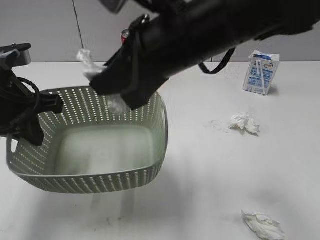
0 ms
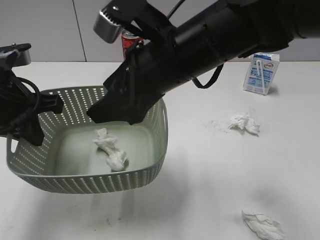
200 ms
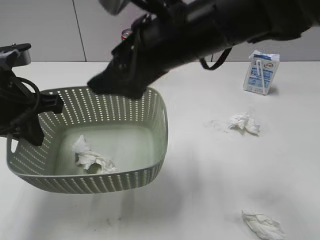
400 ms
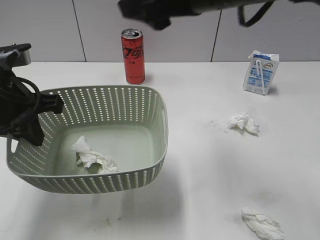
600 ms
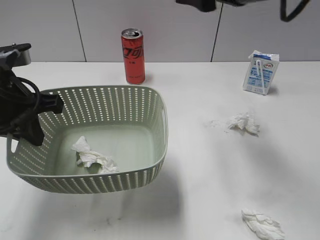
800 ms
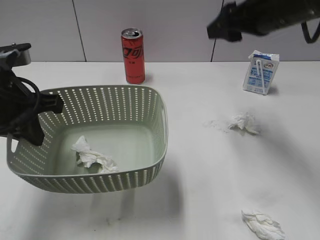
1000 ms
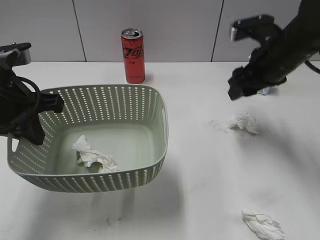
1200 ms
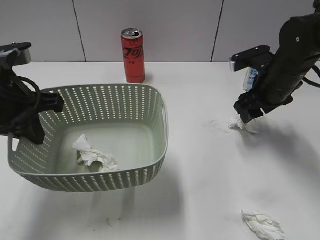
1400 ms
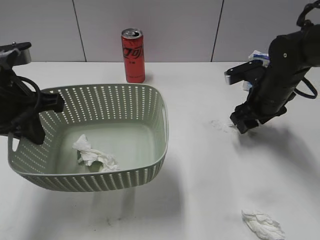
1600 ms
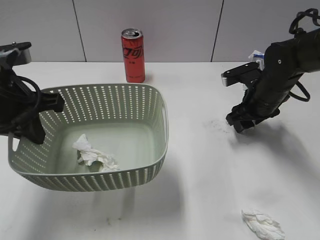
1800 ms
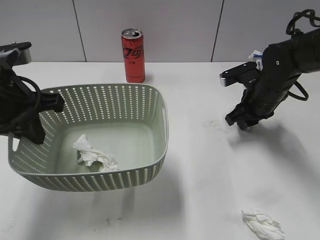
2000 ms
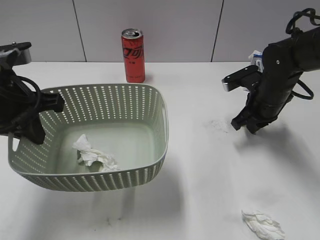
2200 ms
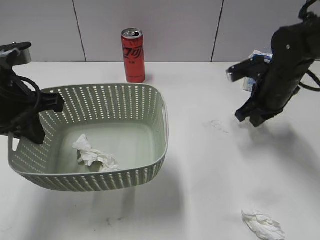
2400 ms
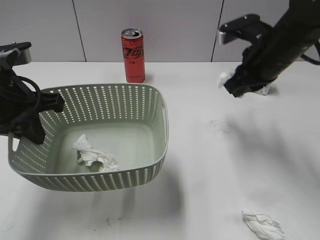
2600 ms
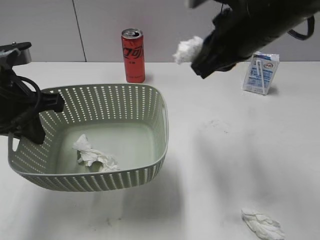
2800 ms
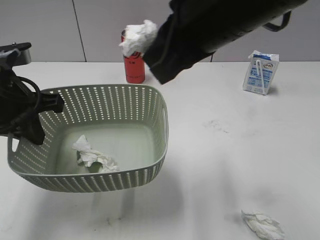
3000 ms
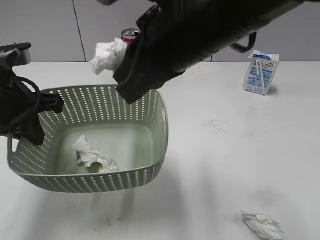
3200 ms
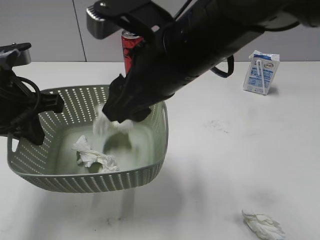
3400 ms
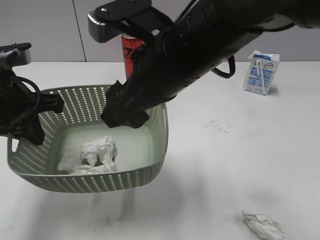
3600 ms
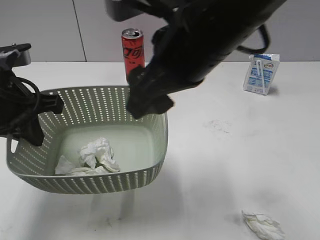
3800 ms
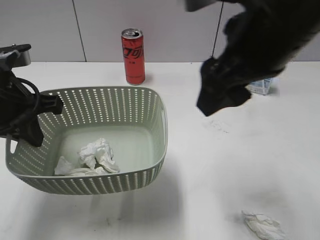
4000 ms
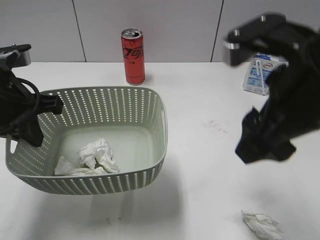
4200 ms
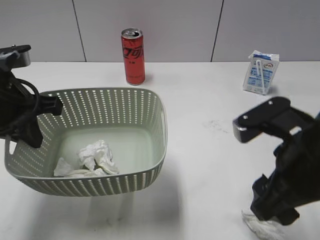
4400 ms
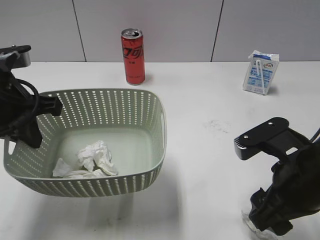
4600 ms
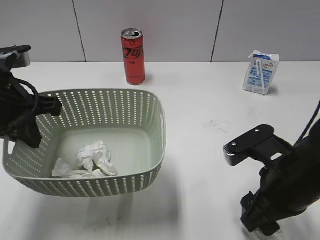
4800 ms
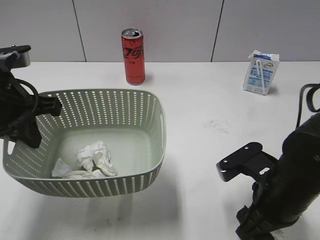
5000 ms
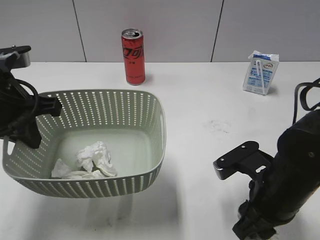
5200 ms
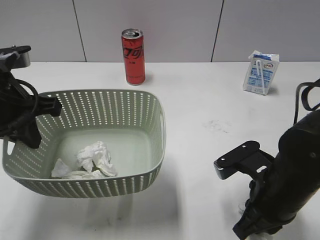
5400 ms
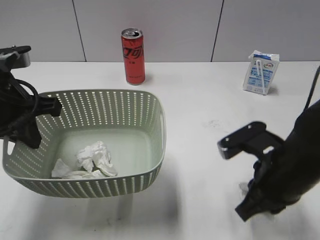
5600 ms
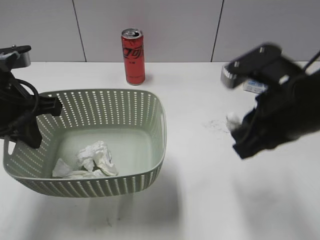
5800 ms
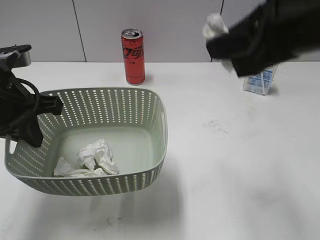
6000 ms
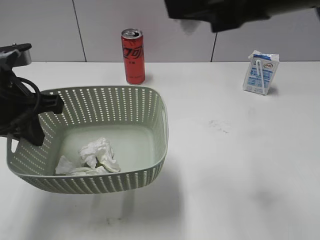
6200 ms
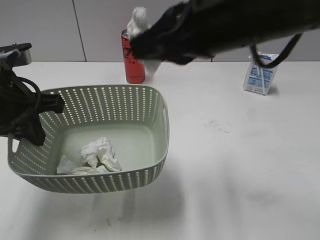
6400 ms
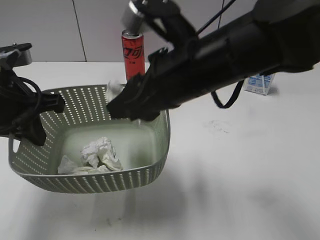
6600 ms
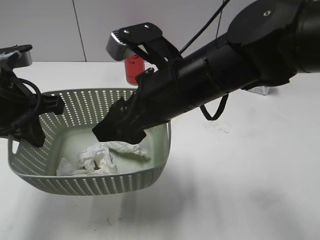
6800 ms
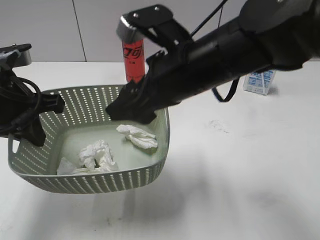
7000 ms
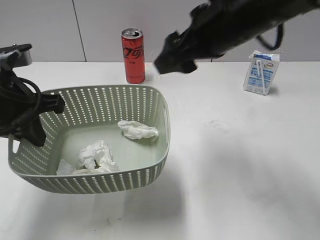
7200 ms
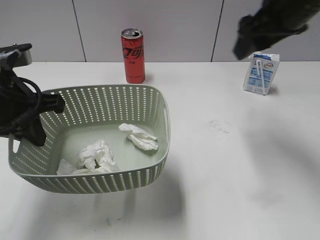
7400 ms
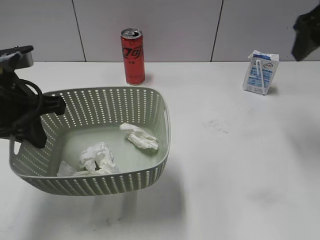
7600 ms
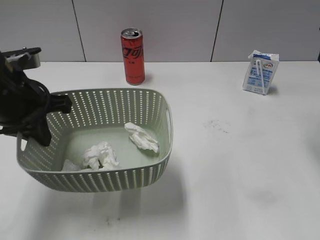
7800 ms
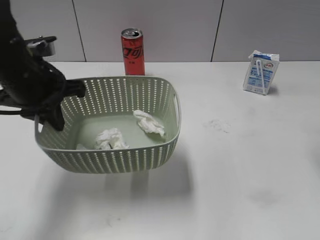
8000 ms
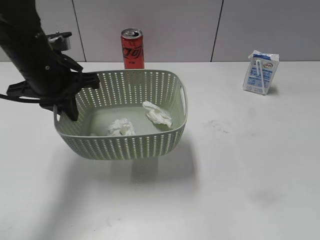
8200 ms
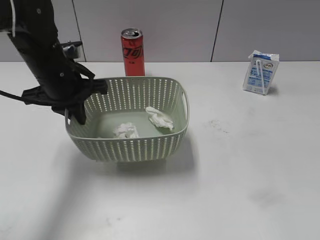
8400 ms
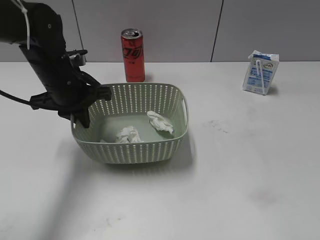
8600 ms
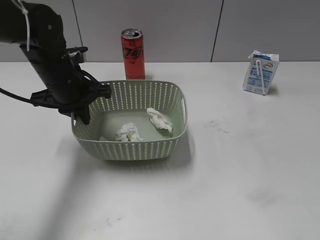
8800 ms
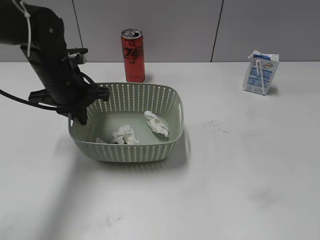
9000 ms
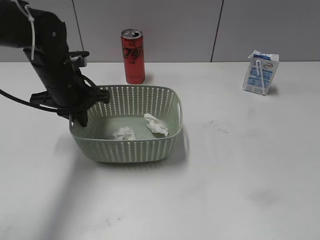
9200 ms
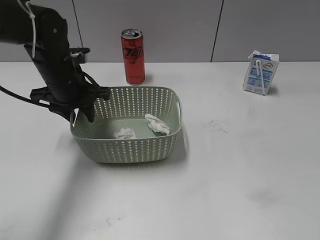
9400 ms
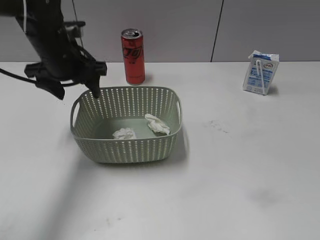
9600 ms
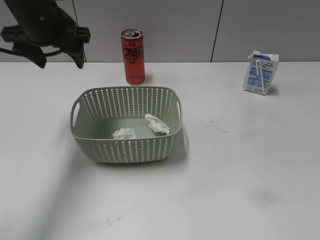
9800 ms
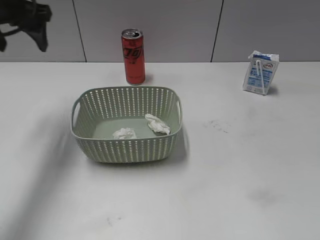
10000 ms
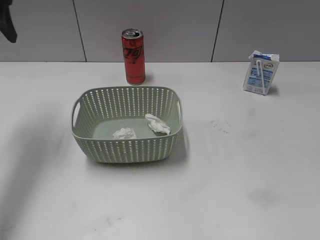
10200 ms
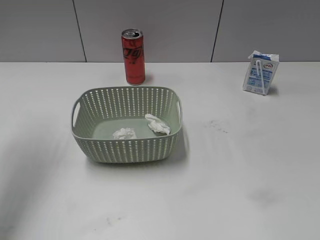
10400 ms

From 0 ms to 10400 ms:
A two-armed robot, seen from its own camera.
Step, from 600 ms to 2200 ms: Grasp the waste paper with right gripper.
Step, from 2400 ms to 3600 ms: Place the waste paper in the basket with right gripper.
Step, from 3800 ms to 5400 ms: Grasp the waste paper with right gripper.
Step, from 5600 ms to 7000 ms: Place the waste paper in the basket with right gripper.
Step, from 7200 ms to 9600 ms: Place the basket on the table with left gripper.
From 0 ms to 1400 ms: The right gripper heads to the right, downward and forward, covering roughly 25 cm, and opens up.
From 1400 ms to 3000 ms: The right gripper travels upward, to the left and backward by about 25 cm, and closes.
From 3000 ms to 4400 ms: The right gripper is displaced downward, to the right and backward by some 15 cm, and opens.
From 4400 ms to 6000 ms: The right gripper is displaced upward by some 15 cm, and closes its fingers.
From 6000 ms to 7400 ms: The right gripper moves forward, some 15 cm, moves about 10 cm downward and comes back, and opens.
From 7400 ms to 9000 ms: The right gripper shifts roughly 35 cm backward and to the right; the left gripper moves forward and downward, approximately 15 cm.
From 9000 ms to 10400 ms: The left gripper heads upward and to the left, covering approximately 25 cm, and opens.

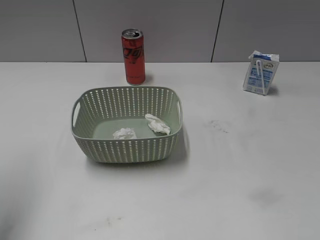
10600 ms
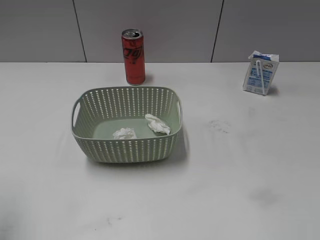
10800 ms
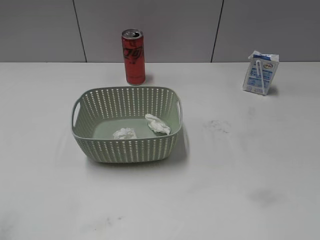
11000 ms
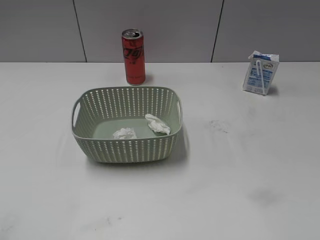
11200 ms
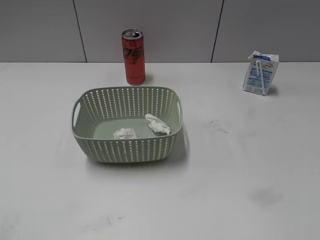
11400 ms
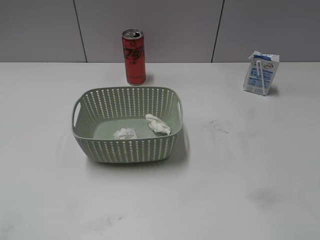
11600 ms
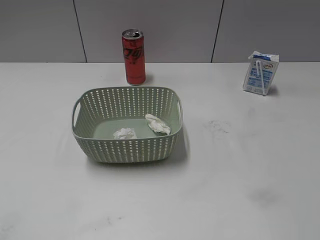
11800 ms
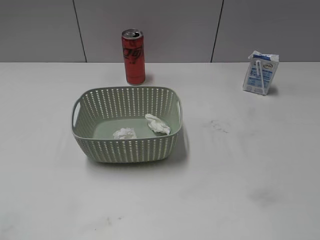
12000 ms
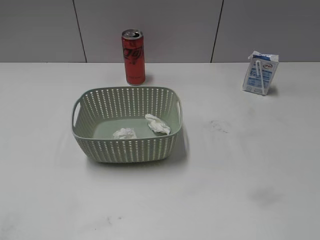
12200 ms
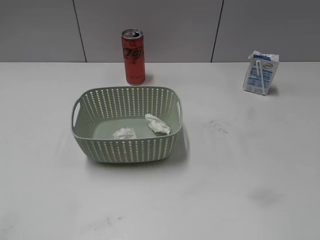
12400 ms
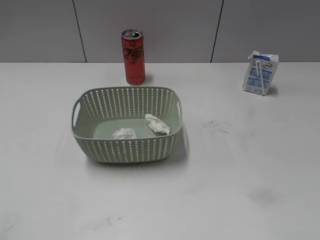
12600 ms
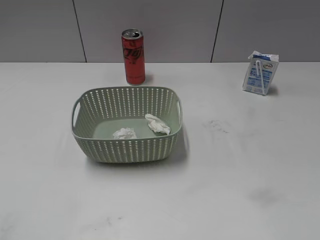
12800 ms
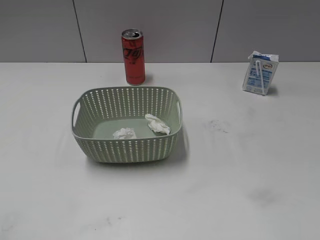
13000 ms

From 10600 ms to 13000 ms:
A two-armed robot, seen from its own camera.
From 10600 ms to 11800 ms: The left gripper goes about 25 cm backward.

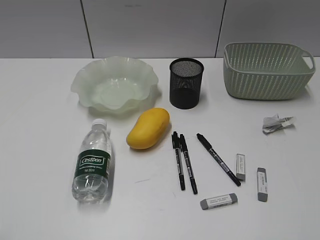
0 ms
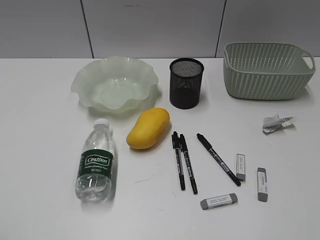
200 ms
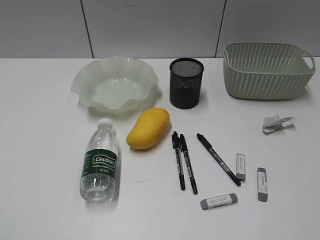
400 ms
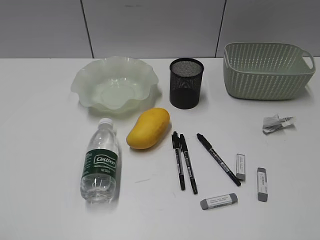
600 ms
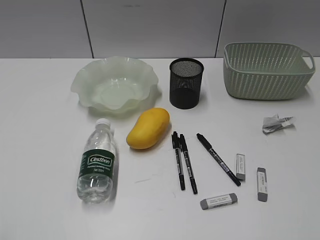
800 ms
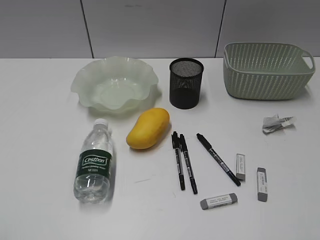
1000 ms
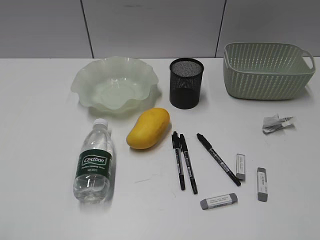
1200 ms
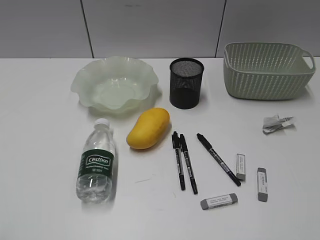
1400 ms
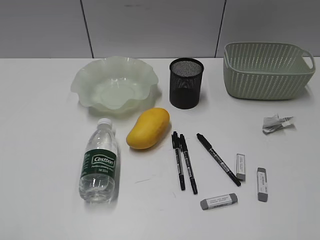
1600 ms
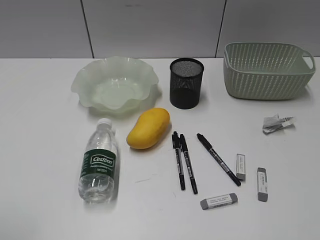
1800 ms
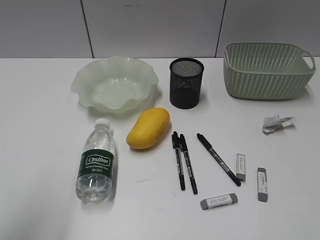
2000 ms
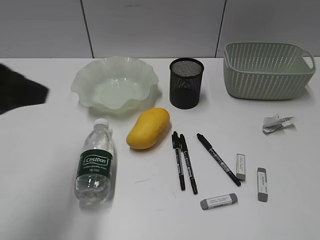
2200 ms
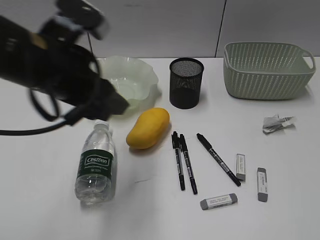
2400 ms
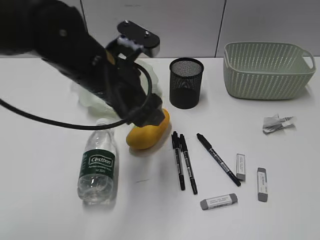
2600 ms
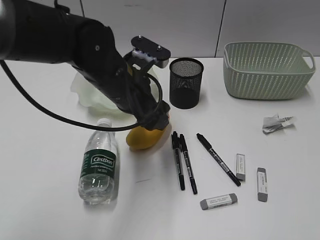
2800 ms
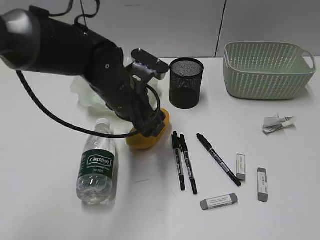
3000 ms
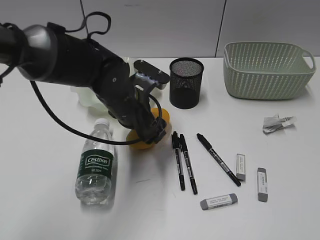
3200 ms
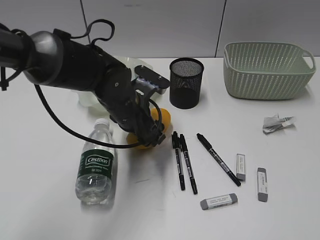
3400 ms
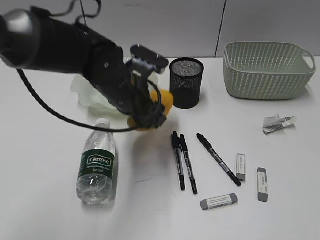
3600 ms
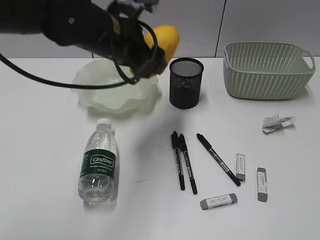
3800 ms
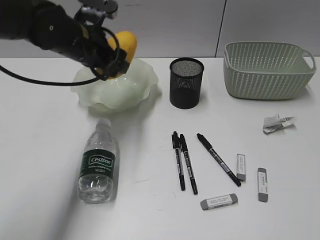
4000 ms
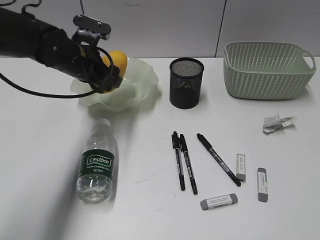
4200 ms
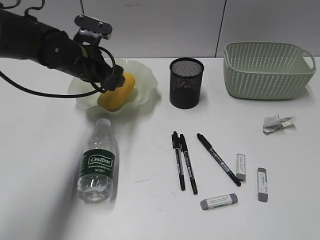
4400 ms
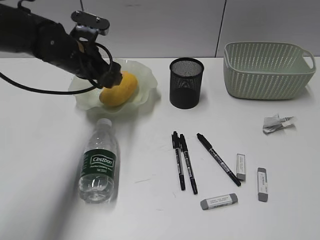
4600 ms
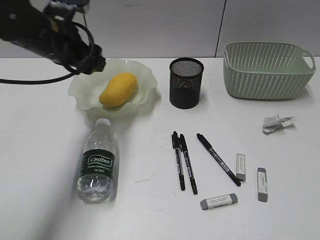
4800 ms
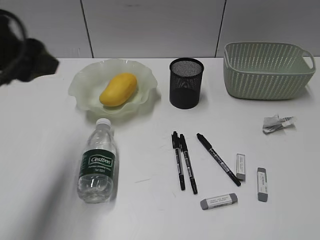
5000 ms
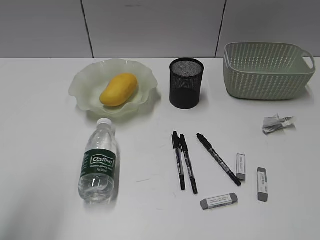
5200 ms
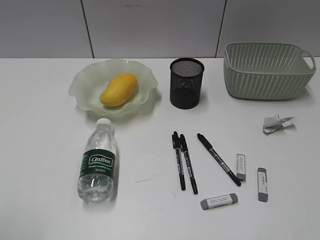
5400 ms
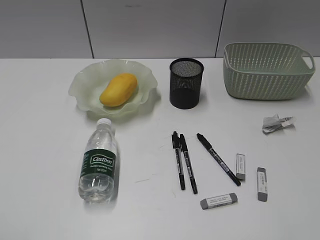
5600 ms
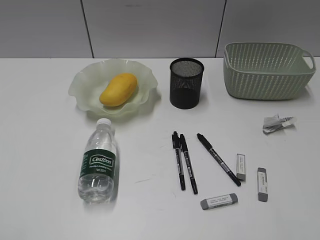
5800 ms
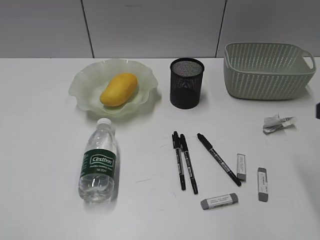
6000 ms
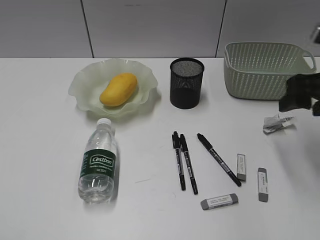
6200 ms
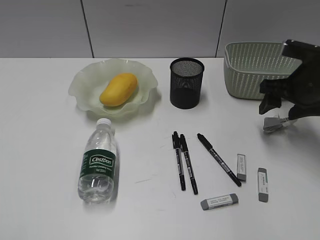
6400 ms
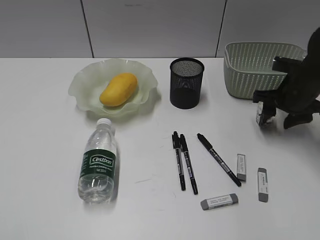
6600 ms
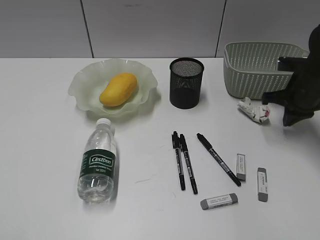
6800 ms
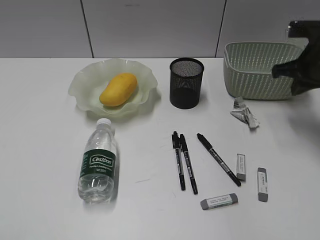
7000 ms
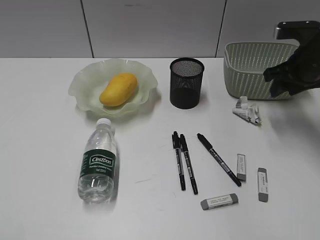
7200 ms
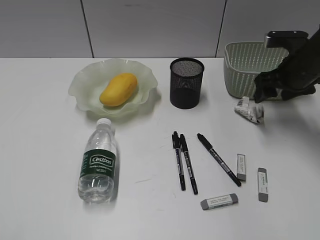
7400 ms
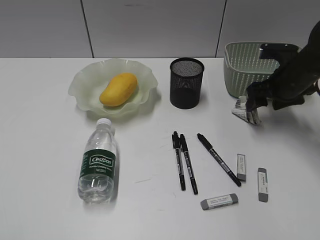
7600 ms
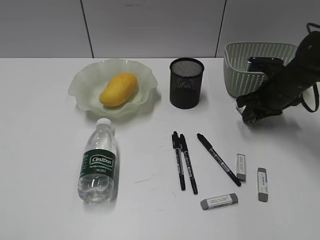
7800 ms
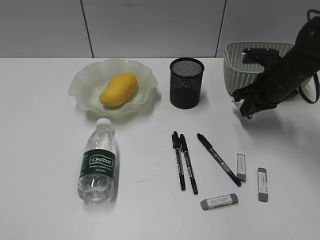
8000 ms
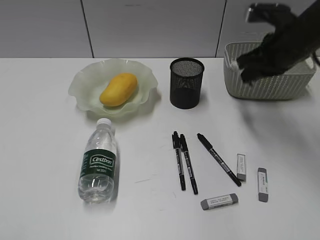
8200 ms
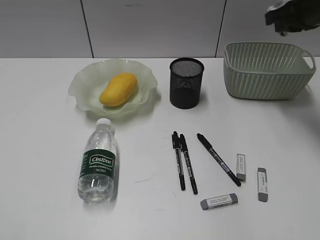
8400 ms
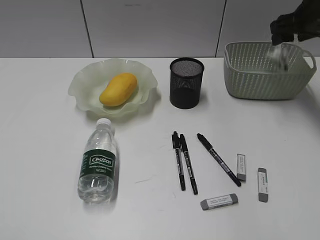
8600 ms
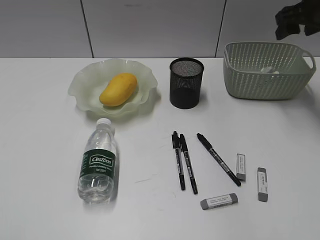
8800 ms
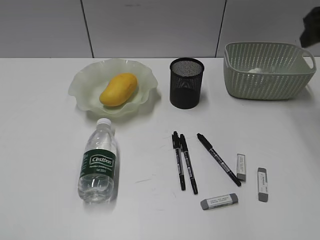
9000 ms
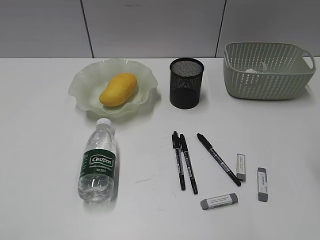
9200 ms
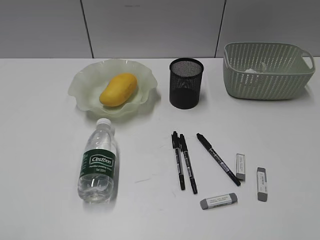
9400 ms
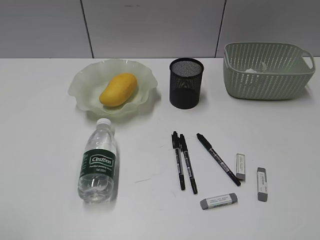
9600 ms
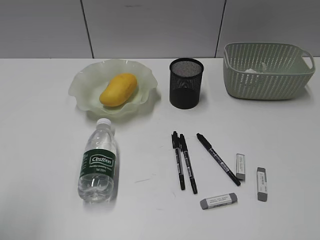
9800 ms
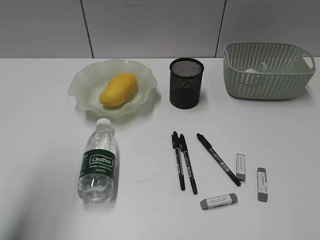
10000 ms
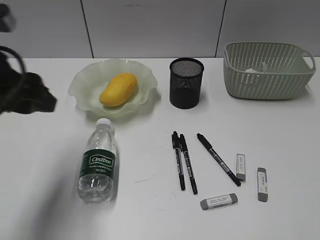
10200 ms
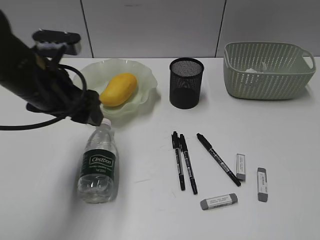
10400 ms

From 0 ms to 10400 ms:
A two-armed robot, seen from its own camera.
Step, from 1600 ms to 3400 ms: Grasp the mango with left gripper.
Step, from 3600 ms to 4600 ms: Place the mango in the plate with left gripper.
Step, from 4800 ms to 7800 ms: Grasp the waste paper with right gripper.
Step, from 8000 ms to 8600 ms: Place the waste paper in the basket with right gripper.
From 1400 ms to 3000 ms: The left gripper shifts approximately 40 cm forward and to the right, and opens.
From 3000 ms to 4400 ms: The left gripper goes approximately 10 cm to the left and forward, and travels upward and back again, roughly 10 cm each way.
From 4400 ms to 6000 ms: The left gripper is displaced backward and to the left by roughly 40 cm. Meanwhile the right gripper shifts roughly 20 cm forward.
From 6000 ms to 7400 ms: The right gripper is displaced forward and downward by approximately 25 cm, and closes and opens again.
From 7400 ms to 9000 ms: The right gripper is displaced upward by about 15 cm, and closes, then reopens.
From 9000 ms to 10400 ms: The right gripper shifts about 35 cm backward; the left gripper shifts approximately 30 cm forward and to the right.
